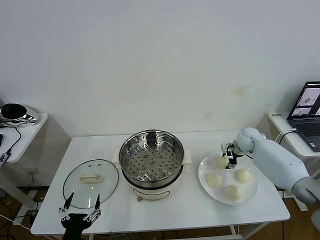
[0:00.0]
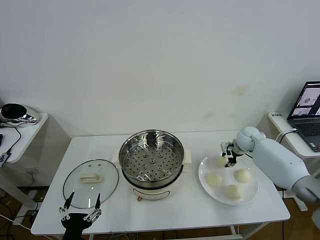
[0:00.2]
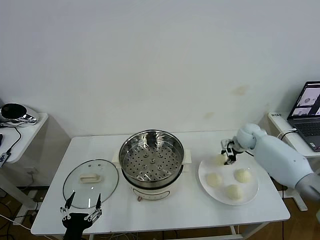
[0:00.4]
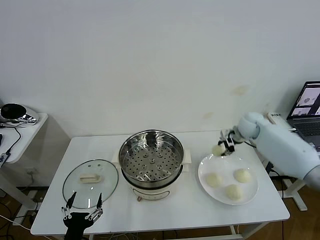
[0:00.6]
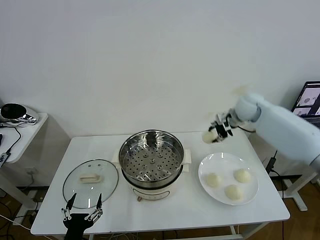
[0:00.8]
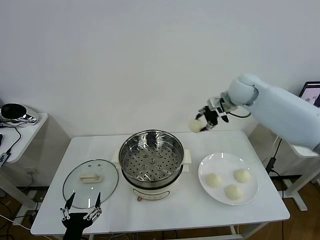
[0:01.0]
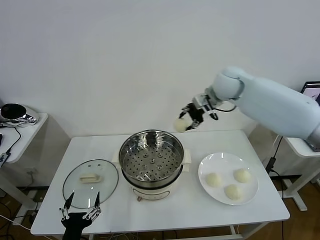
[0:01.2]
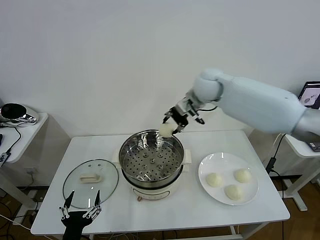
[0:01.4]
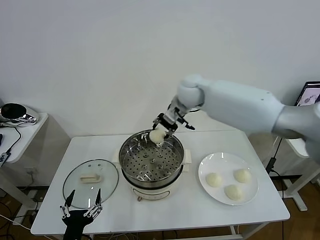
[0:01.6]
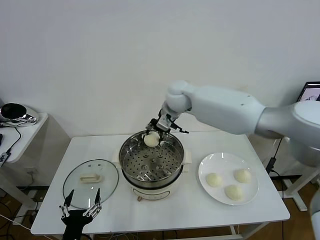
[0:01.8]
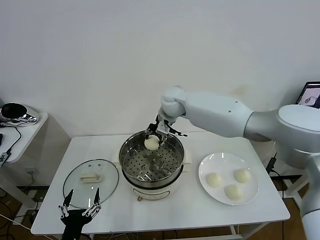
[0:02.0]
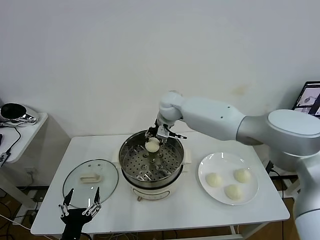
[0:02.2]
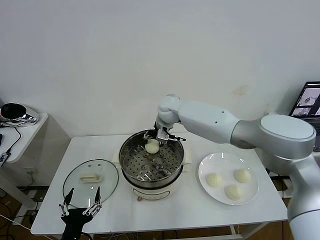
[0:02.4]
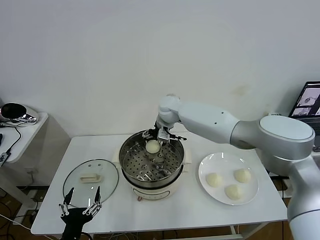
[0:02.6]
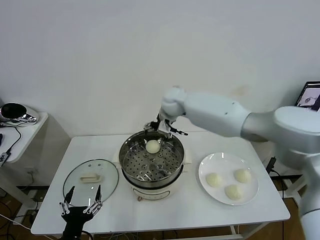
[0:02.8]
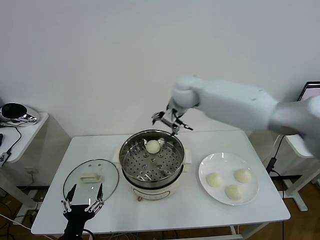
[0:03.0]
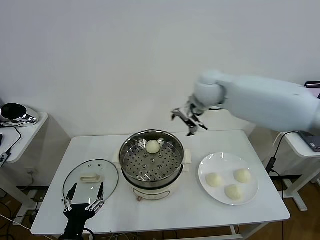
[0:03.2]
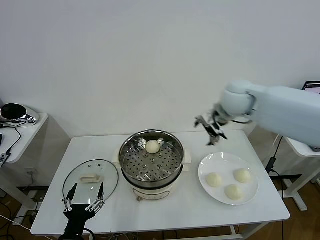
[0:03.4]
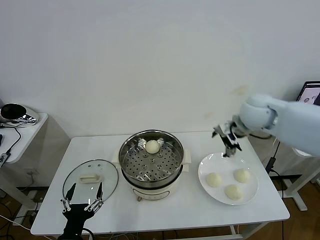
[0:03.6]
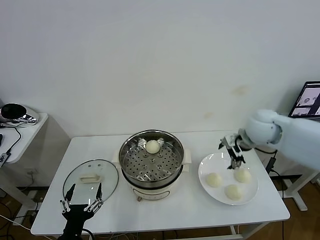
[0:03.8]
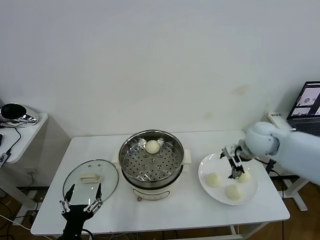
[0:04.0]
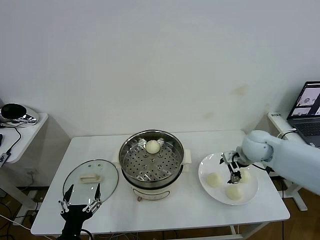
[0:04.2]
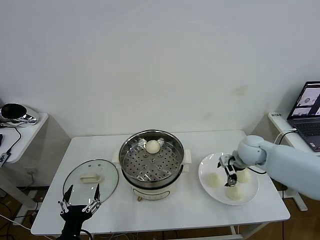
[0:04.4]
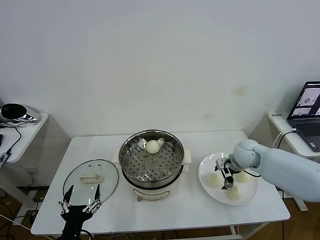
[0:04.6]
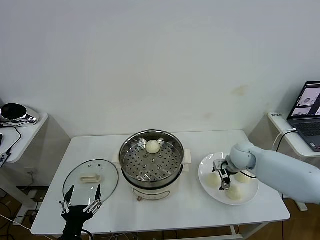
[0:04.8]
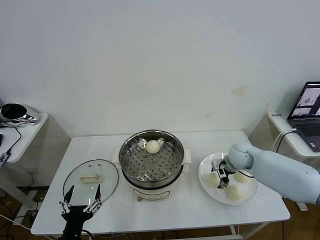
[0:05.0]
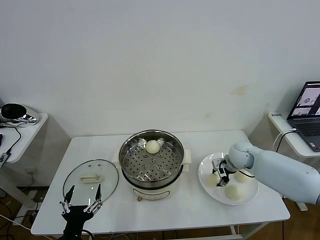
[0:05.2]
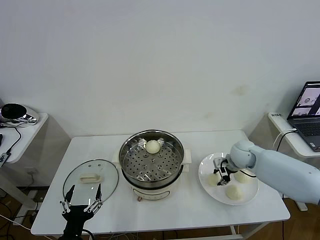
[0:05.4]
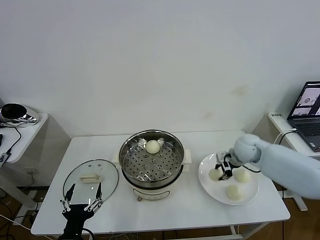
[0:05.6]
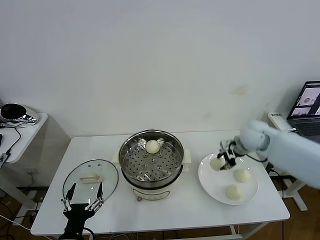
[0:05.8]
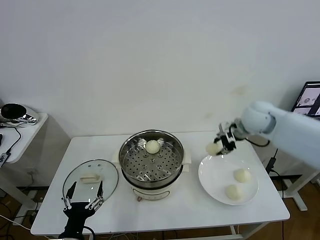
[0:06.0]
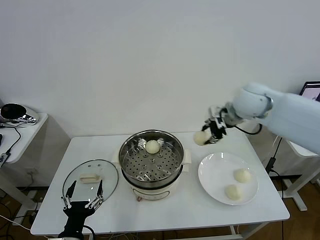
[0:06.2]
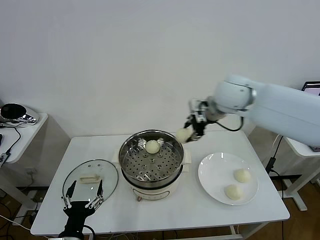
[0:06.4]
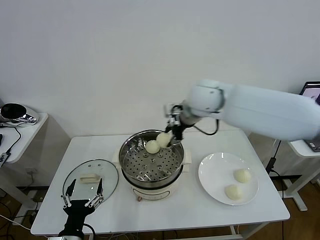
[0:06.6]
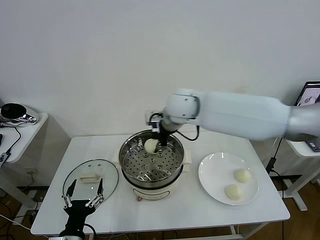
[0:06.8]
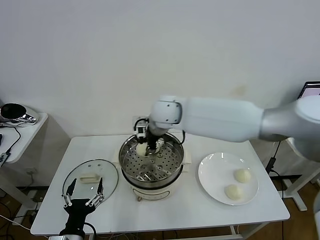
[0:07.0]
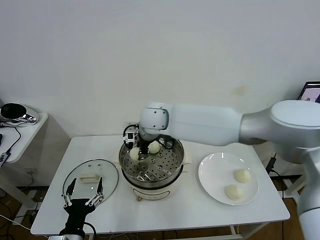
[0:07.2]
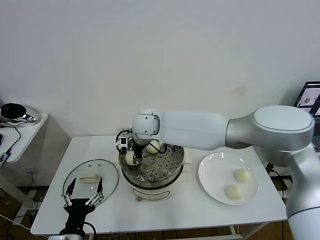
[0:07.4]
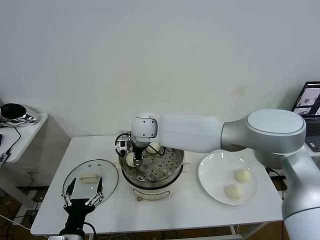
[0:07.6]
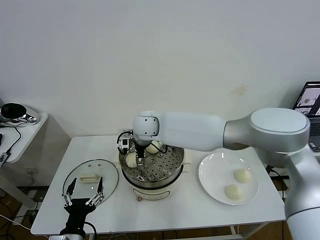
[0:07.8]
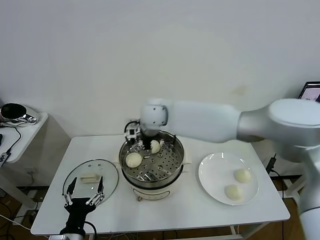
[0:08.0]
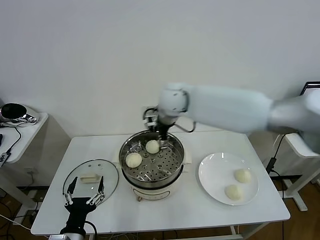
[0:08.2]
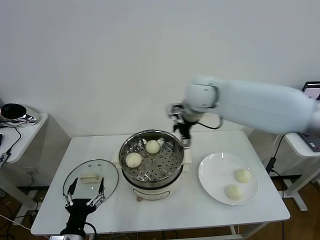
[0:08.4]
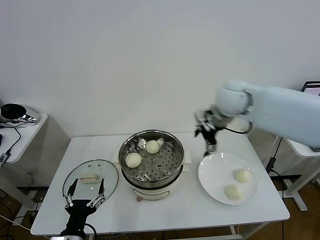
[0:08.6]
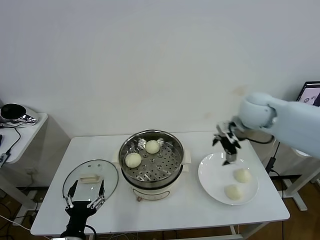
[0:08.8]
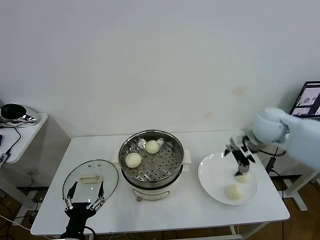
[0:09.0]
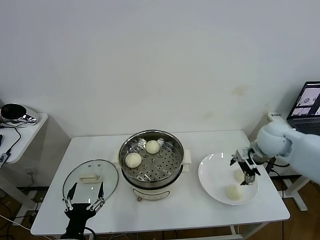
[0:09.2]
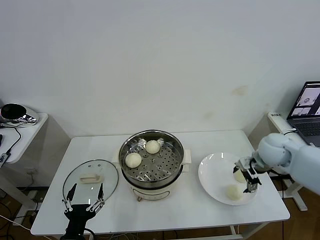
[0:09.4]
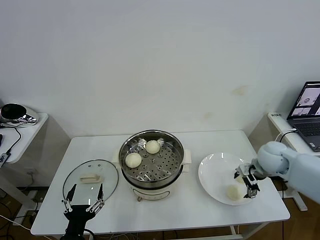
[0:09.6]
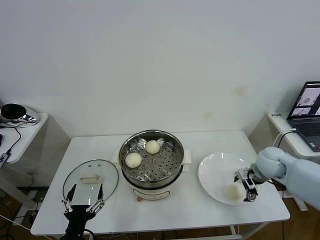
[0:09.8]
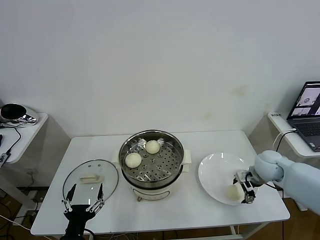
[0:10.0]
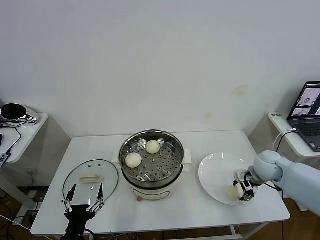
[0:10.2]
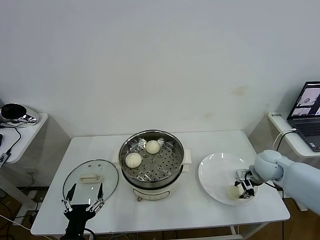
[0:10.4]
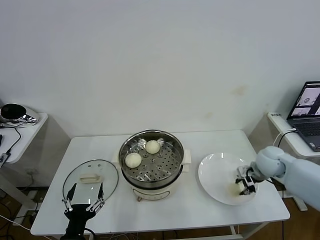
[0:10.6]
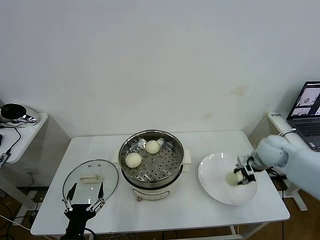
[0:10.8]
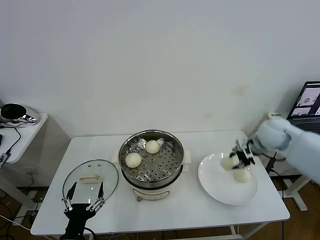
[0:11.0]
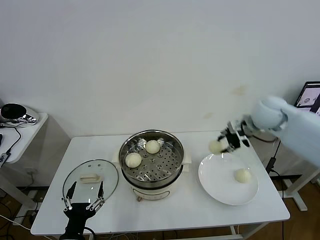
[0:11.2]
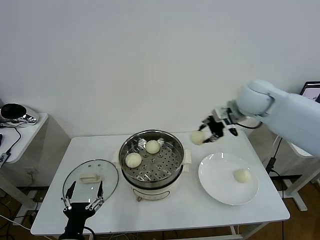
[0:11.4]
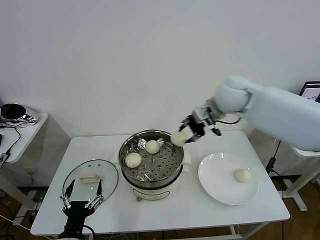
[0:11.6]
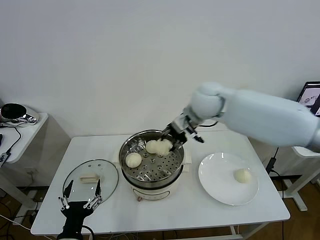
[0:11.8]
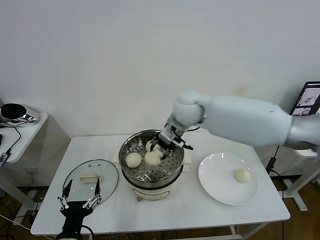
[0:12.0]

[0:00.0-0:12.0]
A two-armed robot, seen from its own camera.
Task of the whole recording: take steamed baozi put them in steamer then cover it.
Step, 0:00.4 to 0:02.6: Place the baozi on the steamer with right gripper.
Step, 0:02.8 to 0:05.4: Grasp the baozi in the plate with right gripper.
Step, 0:05.6 to 0:07.8: Place the baozi on the steamer with right gripper.
Step, 0:08.0 to 0:10.4: Grasp the baozi in the plate with right gripper.
0:00.0 to 0:01.6: The right gripper moves to the left and upward, some 35 cm.
0:01.6 to 0:03.0: The right gripper reaches roughly 10 cm downward, then returns, and opens its fingers.
0:03.0 to 0:04.4: The right gripper travels downward, to the right and backward by roughly 30 cm.
0:04.4 to 0:06.0: The right gripper goes approximately 15 cm upward, and closes.
0:06.0 to 0:07.6: The right gripper goes approximately 35 cm to the left, and opens its fingers.
0:07.6 to 0:09.0: The right gripper shifts approximately 40 cm to the right, and opens its fingers.
0:09.0 to 0:10.4: The right gripper is displaced downward by about 15 cm, and closes up.
0:10.4 to 0:12.0: The right gripper heads to the left and upward, covering some 35 cm.

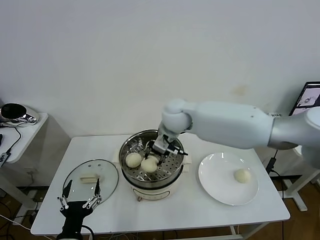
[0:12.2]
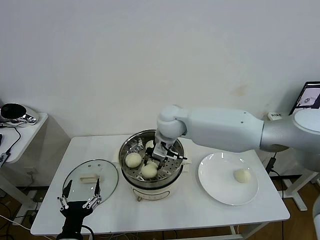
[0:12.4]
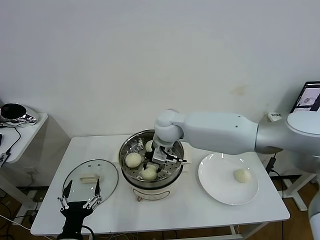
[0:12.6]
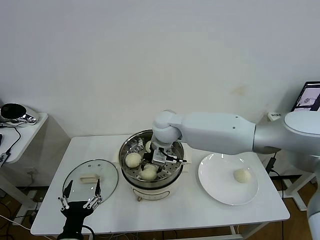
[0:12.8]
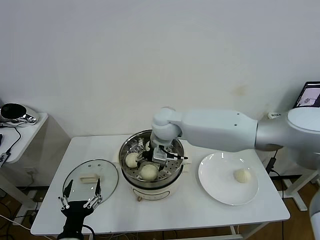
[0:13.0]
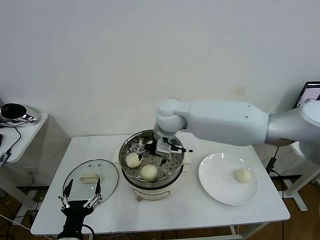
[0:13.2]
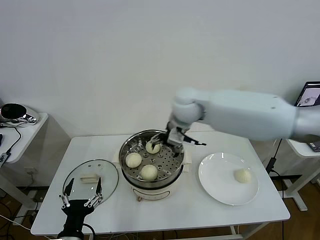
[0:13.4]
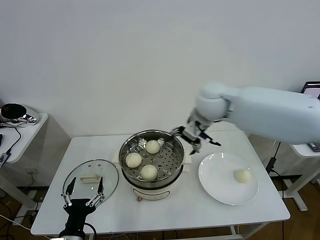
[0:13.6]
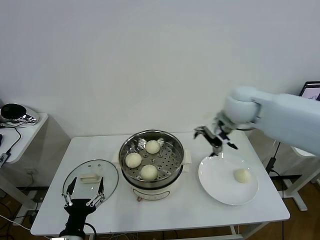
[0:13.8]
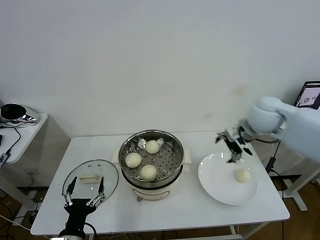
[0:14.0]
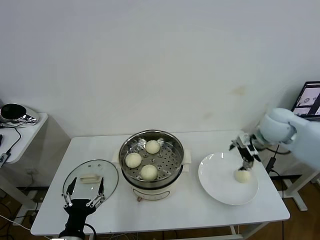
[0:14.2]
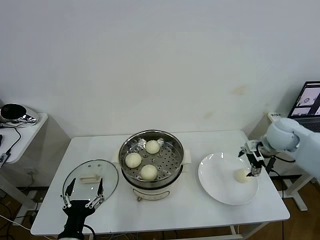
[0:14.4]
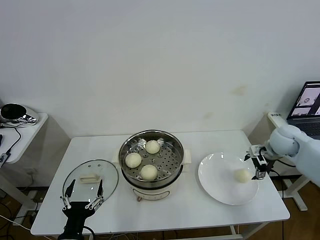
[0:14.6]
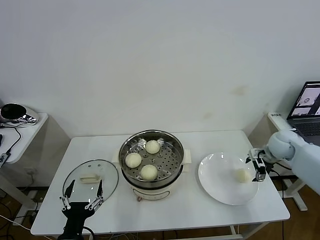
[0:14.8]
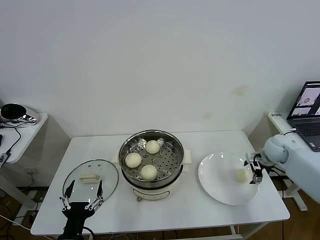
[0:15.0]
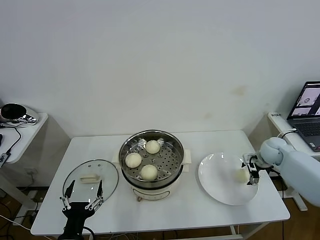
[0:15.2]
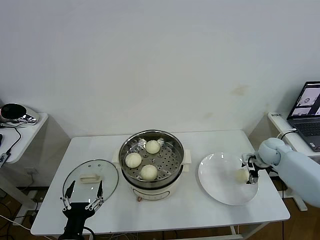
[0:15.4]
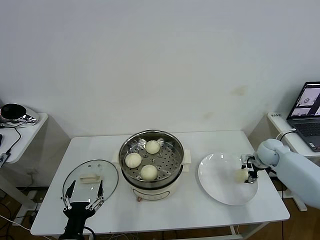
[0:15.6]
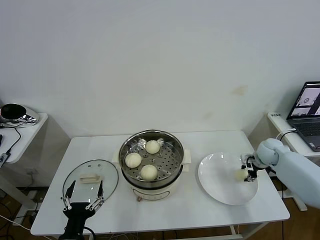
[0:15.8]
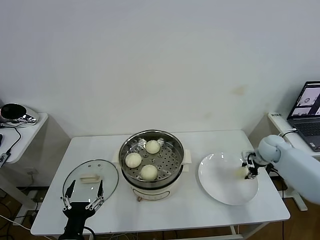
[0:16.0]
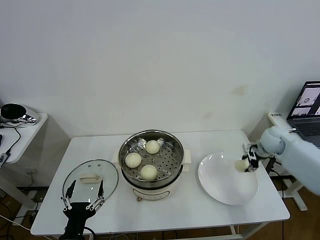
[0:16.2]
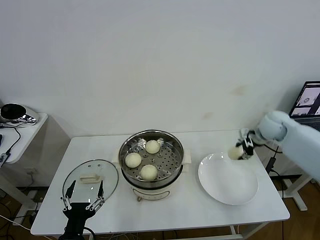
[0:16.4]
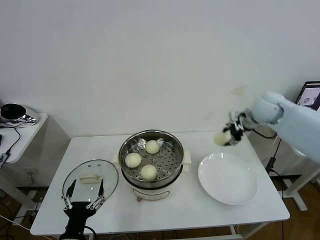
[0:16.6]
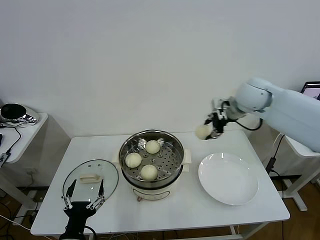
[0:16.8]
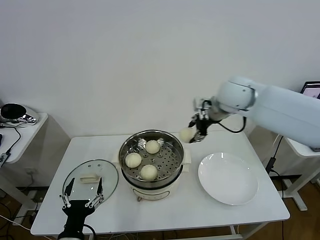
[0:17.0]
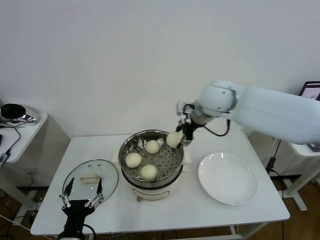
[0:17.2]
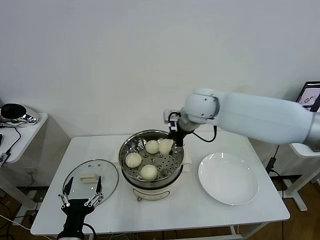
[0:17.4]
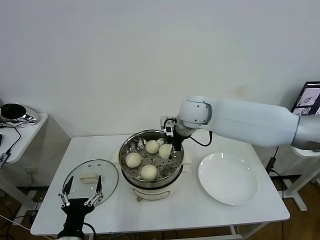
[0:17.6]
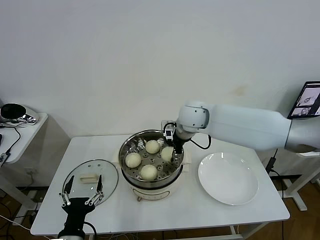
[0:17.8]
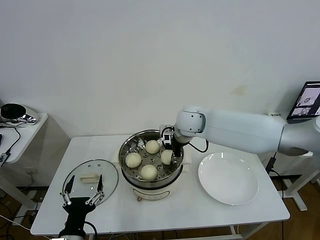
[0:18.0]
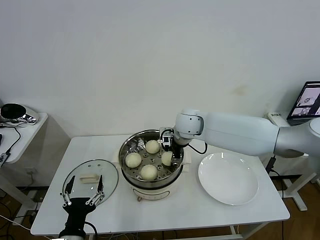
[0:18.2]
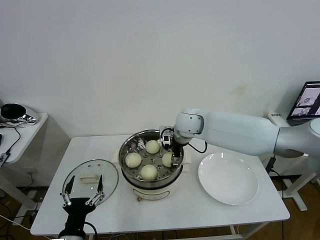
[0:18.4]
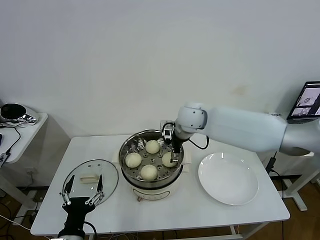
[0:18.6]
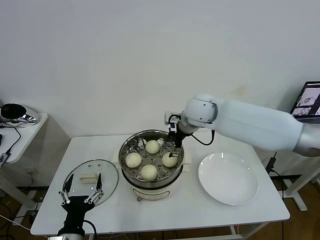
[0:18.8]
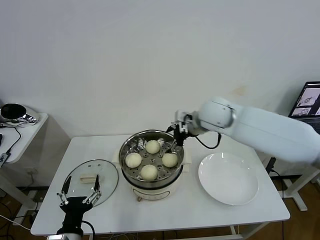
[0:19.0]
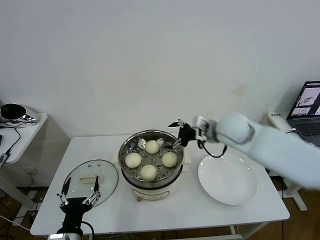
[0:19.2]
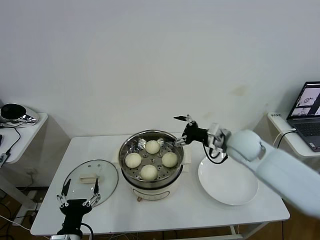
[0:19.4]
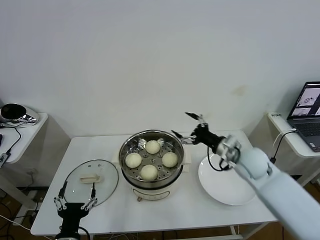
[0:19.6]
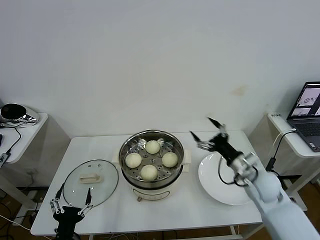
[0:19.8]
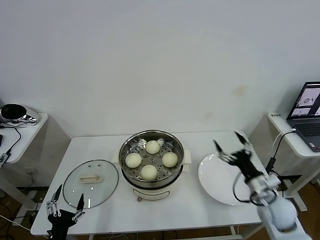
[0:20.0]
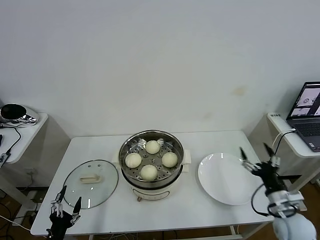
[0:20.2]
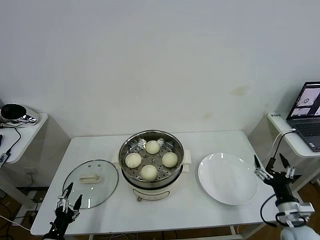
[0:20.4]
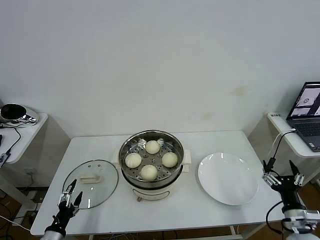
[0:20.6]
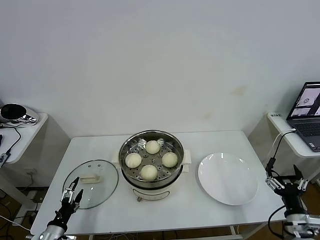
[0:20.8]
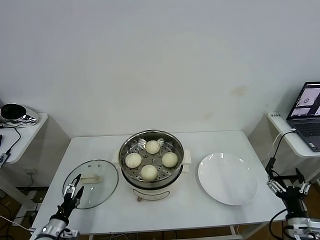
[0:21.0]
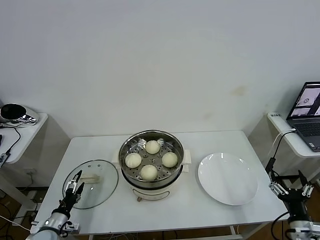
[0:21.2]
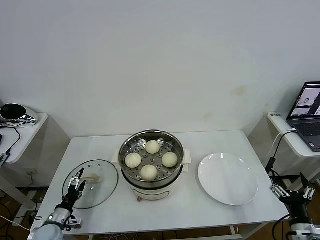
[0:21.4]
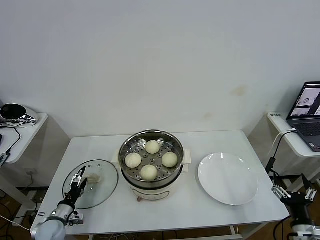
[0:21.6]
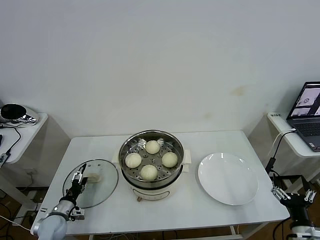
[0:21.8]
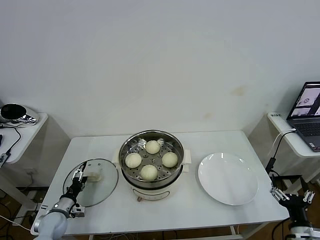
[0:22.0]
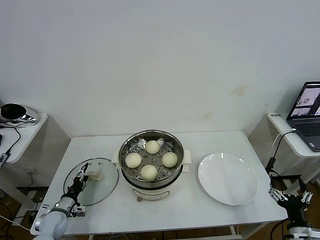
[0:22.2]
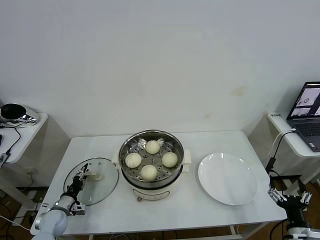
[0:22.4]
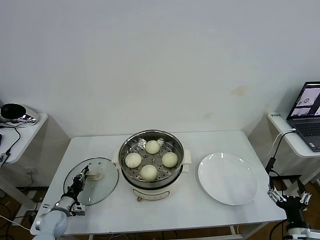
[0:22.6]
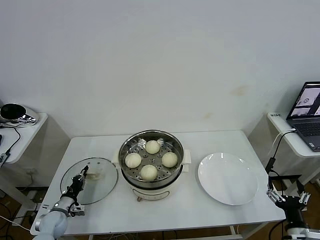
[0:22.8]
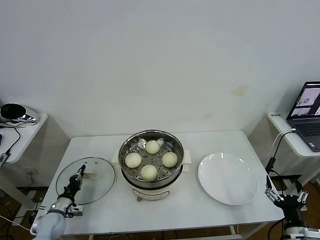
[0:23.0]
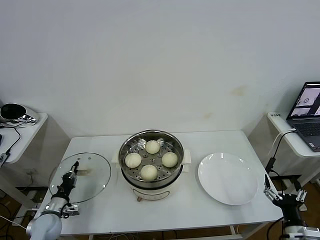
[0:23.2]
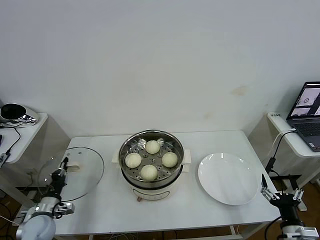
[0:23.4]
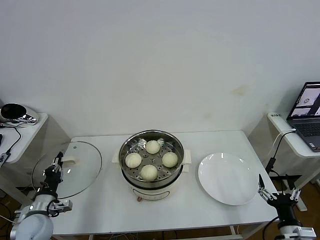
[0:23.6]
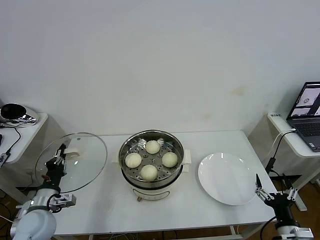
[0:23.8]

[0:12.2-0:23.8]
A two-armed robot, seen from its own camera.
Task of the whole recording: take steamed baozi put them in steamer then cover it.
Step, 0:13.2 to 0:15.6: Grasp the baozi in the plate with right gripper.
Step, 0:15.8 to 0:18.6: Place the baozi on the steamer with right gripper.
Step, 0:18.8 to 0:22.8: Grasp the pot lid with left gripper.
0:12.2 to 0:13.6: The right gripper travels to the right and upward by some 15 cm, and opens.
0:13.6 to 0:15.0: The right gripper goes roughly 35 cm to the right and downward.
0:15.0 to 0:16.6: The right gripper goes about 20 cm upward and to the left, and closes up.
0:16.6 to 0:18.0: The right gripper travels to the left by approximately 25 cm.
0:18.0 to 0:19.4: The right gripper goes some 15 cm to the right and backward, and opens its fingers.
0:19.4 to 0:21.0: The left gripper travels to the left, downward and forward by some 20 cm. The right gripper moves backward, downward and to the right, approximately 35 cm.
0:21.0 to 0:22.4: The left gripper heads forward, covering about 10 cm, and closes.
0:22.4 to 0:23.8: The left gripper is displaced upward by about 15 cm, and closes its fingers.
